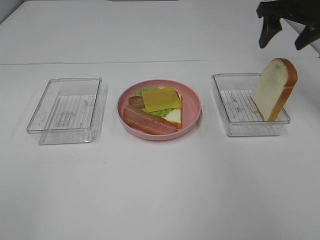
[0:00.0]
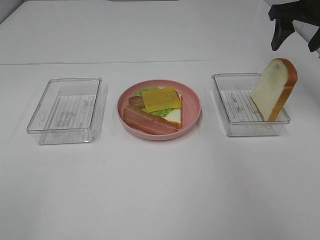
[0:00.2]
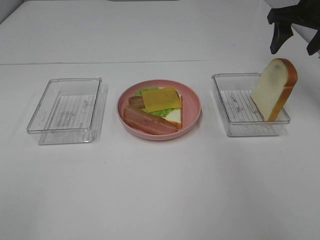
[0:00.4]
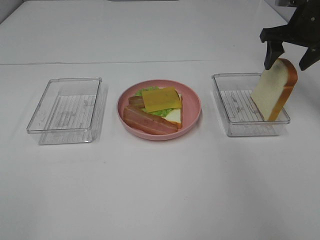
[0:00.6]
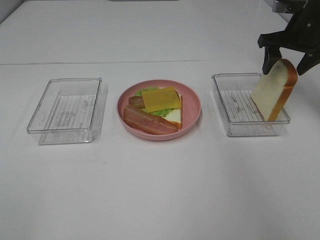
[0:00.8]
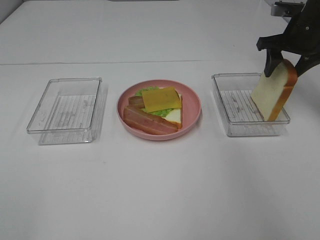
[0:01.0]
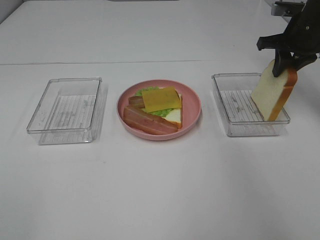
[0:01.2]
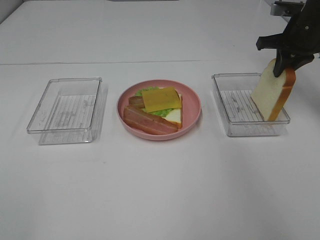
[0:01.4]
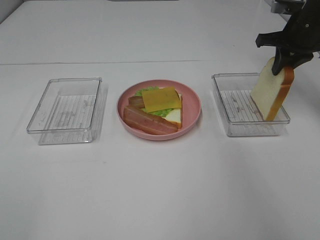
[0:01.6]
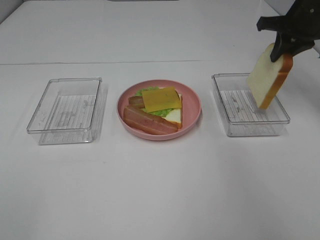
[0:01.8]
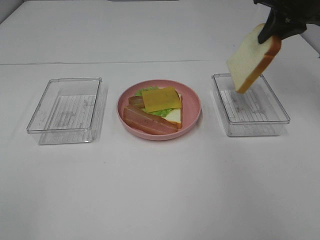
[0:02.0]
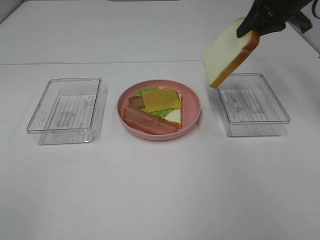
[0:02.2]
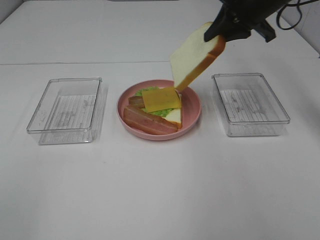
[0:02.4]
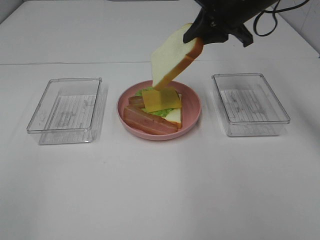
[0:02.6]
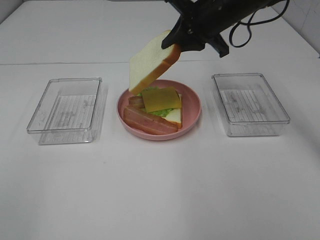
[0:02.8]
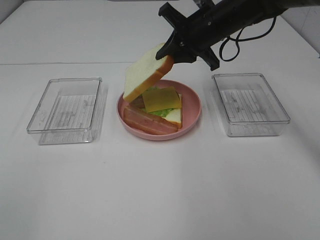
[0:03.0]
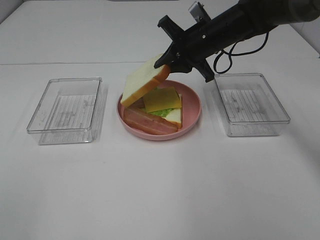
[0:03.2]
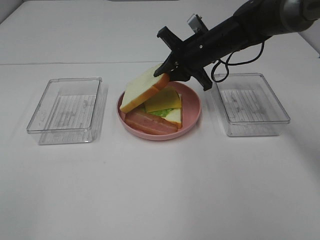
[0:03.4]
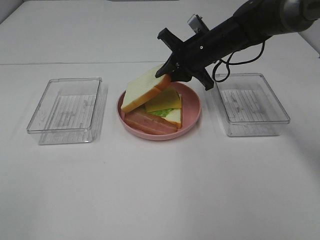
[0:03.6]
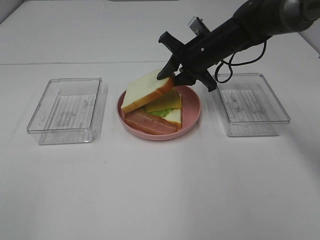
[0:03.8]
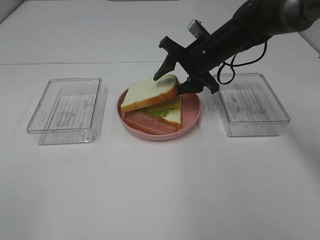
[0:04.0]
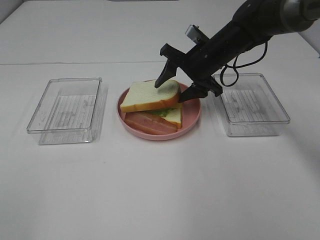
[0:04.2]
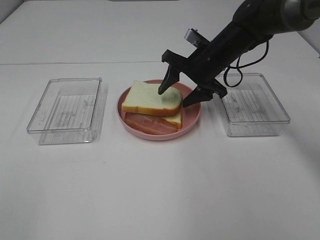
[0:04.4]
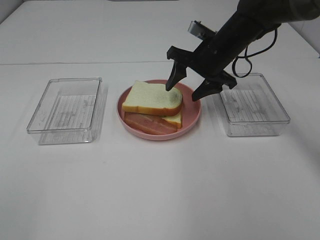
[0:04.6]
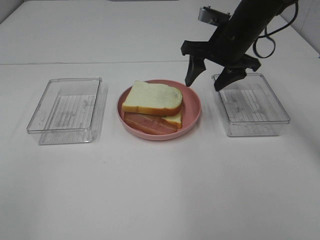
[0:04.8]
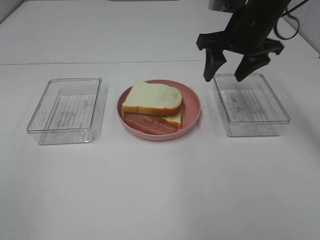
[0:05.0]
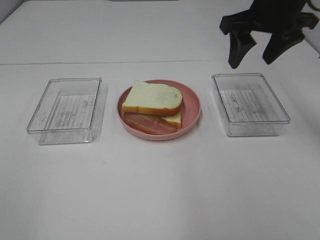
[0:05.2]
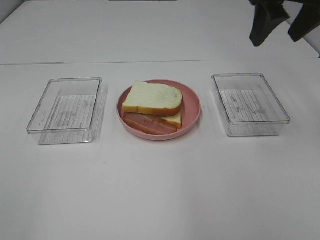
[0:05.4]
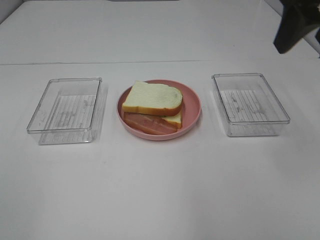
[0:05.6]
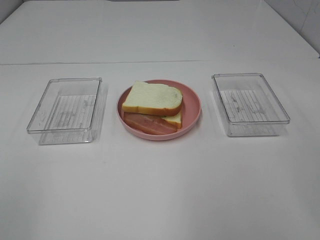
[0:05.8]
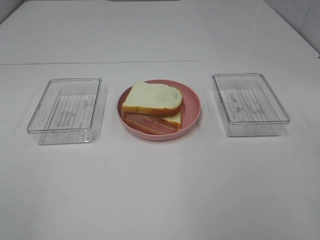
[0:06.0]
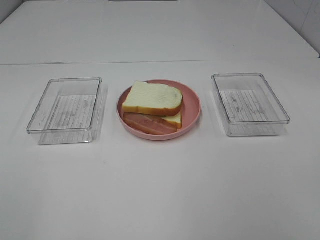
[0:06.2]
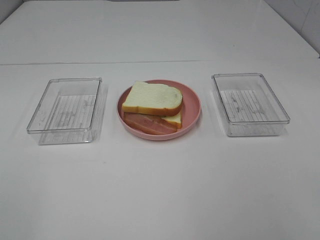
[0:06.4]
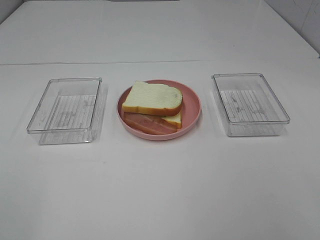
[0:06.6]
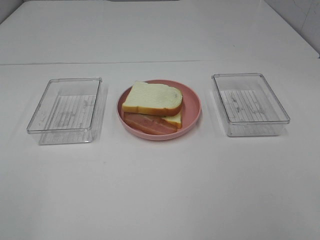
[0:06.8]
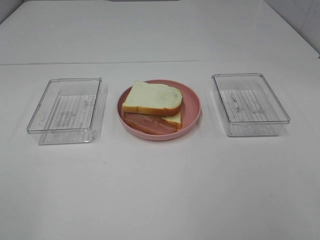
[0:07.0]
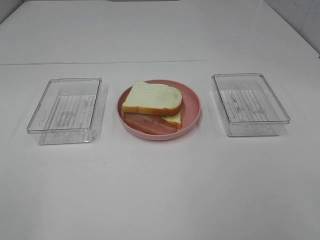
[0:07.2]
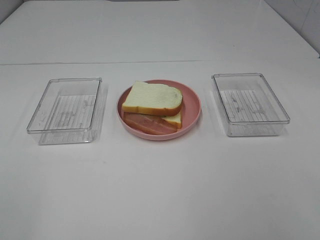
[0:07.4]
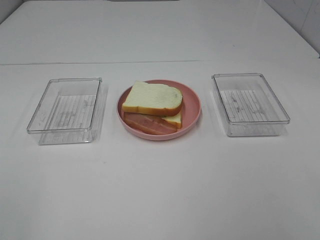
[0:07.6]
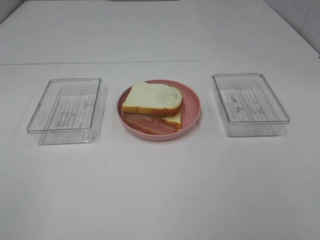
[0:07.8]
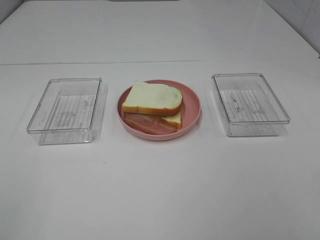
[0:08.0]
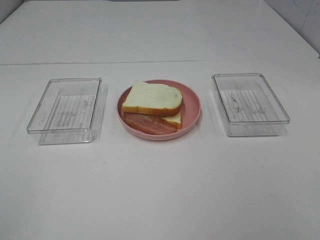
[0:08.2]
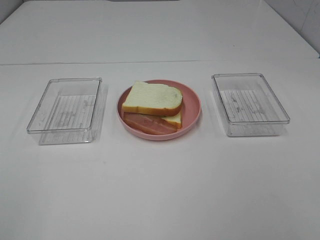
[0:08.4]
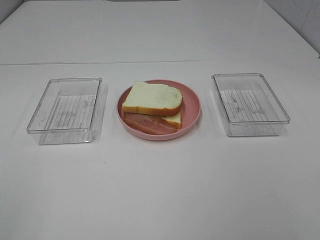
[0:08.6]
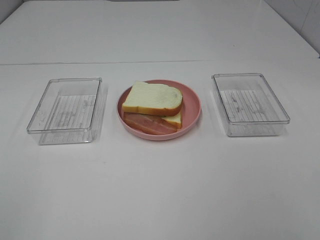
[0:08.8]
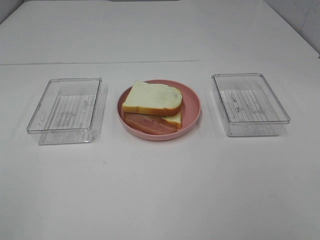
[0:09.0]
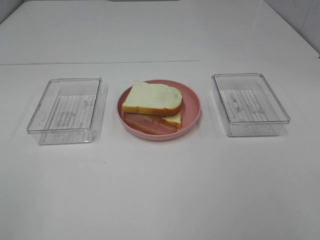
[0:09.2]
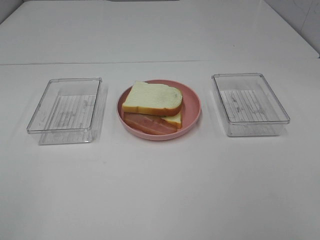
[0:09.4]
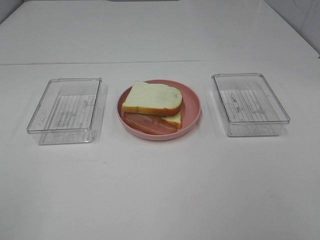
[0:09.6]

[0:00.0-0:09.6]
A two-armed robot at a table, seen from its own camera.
Task of the whole recording: Make sandwiches.
Step, 0:00.0 to 0:01.4: Right hand:grab the bread slice.
Step, 0:01.6 to 0:05.0: Right hand:place the bread slice on the cheese slice.
0:00.0 to 0:01.6: The right gripper shifts approximately 5 cm downward, and closes.
0:01.6 to 0:03.2: The right gripper goes roughly 20 cm to the left.
0:03.2 to 0:04.8: The right gripper changes place by about 5 cm, and opens up.
0:04.8 to 0:06.4: The right gripper shifts roughly 40 cm backward.
0:08.0 to 0:09.6: Both grippers stay about where they are.
